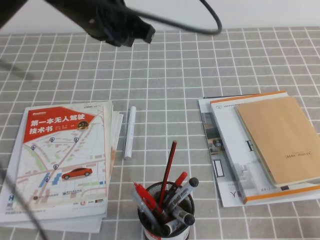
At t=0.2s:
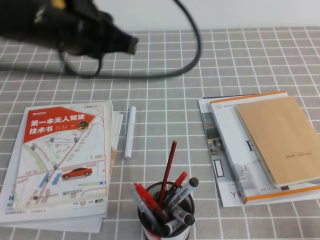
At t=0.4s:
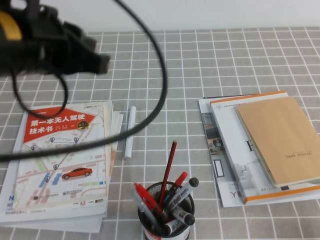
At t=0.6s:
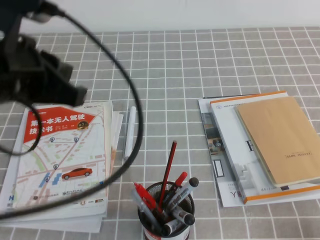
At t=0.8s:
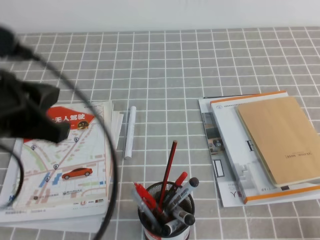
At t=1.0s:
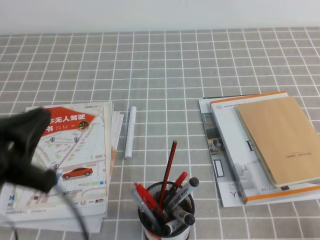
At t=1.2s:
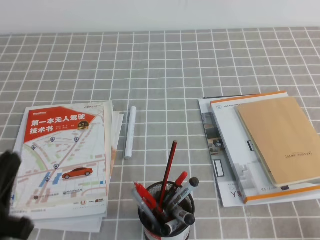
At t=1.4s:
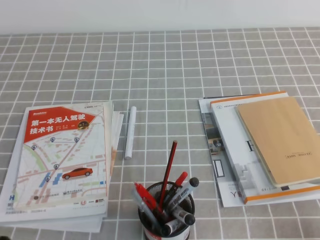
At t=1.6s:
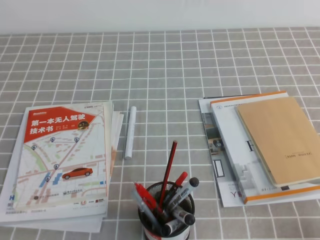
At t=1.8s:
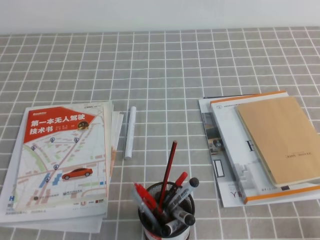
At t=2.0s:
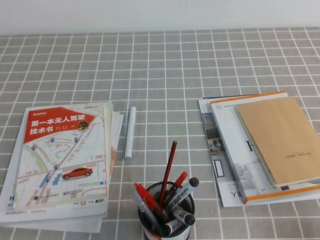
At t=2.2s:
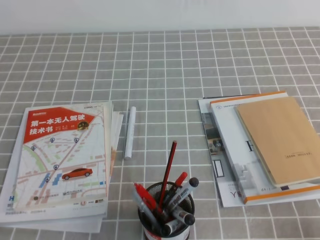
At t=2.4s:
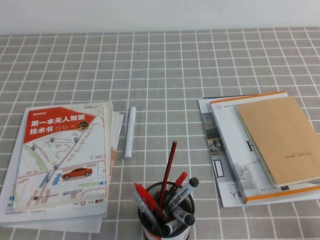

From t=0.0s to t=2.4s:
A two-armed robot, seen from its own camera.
Step, from t=0.0s to t=2.4s: Pick up the pen from the pen holder.
From t=0.0s to t=1.2s: The left gripper goes some 30 cm backward, to the left and downward.
From t=1.2s to t=2.4s: The left gripper shifts about 10 cm downward.
